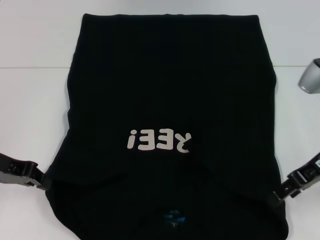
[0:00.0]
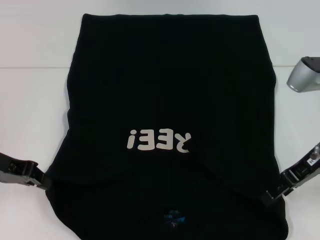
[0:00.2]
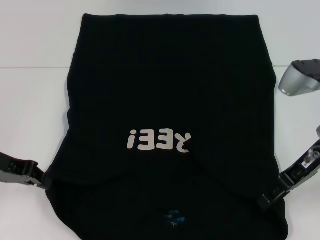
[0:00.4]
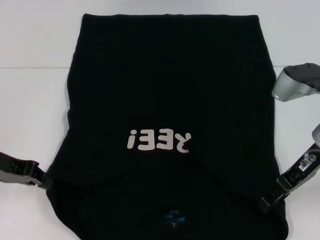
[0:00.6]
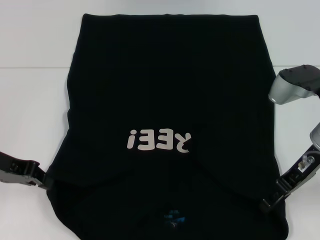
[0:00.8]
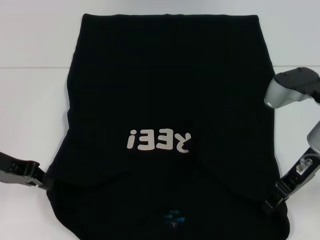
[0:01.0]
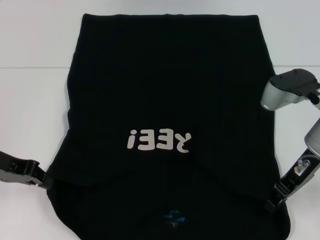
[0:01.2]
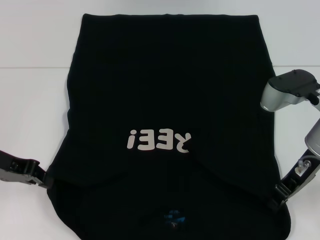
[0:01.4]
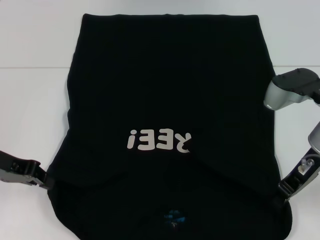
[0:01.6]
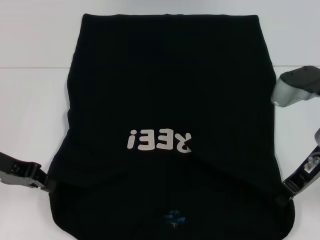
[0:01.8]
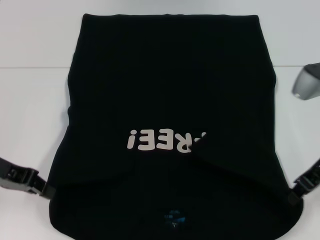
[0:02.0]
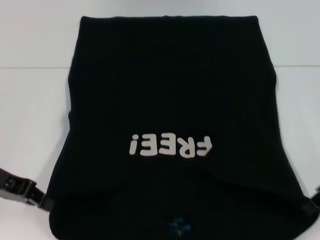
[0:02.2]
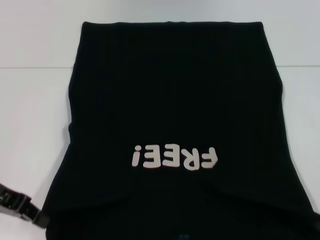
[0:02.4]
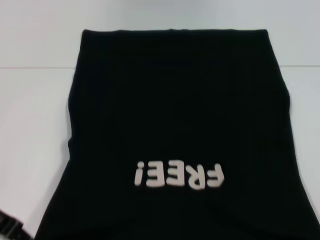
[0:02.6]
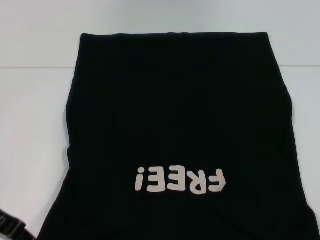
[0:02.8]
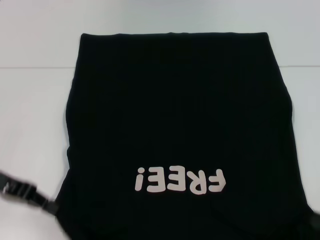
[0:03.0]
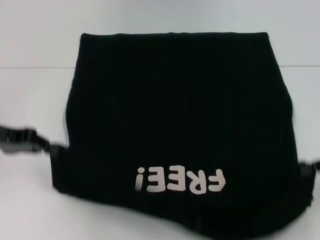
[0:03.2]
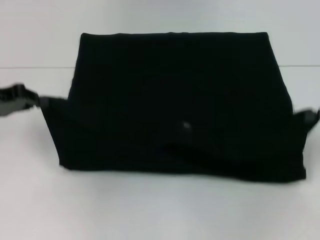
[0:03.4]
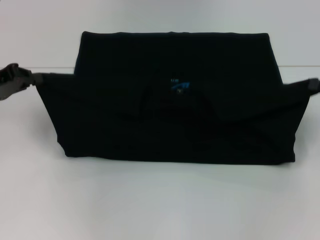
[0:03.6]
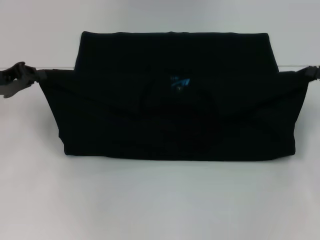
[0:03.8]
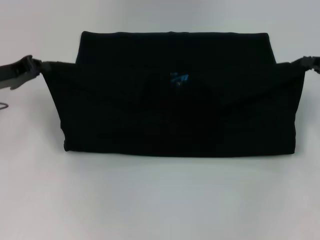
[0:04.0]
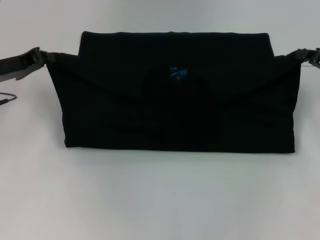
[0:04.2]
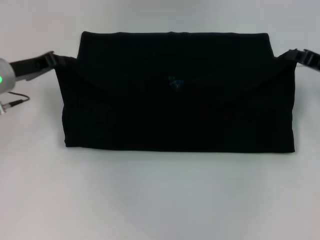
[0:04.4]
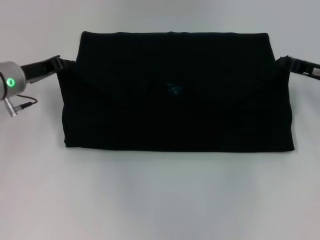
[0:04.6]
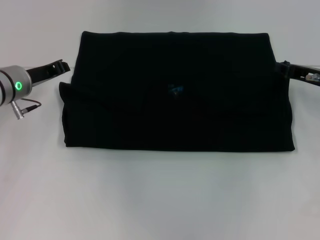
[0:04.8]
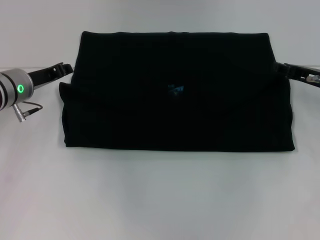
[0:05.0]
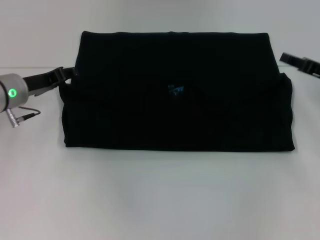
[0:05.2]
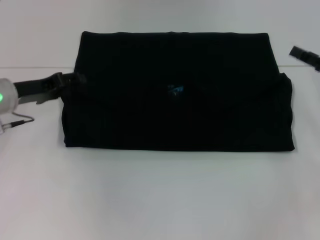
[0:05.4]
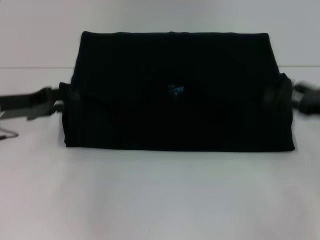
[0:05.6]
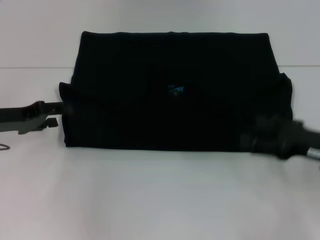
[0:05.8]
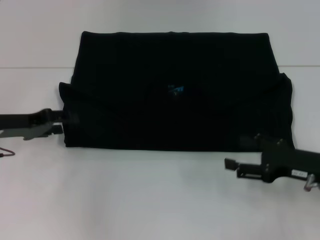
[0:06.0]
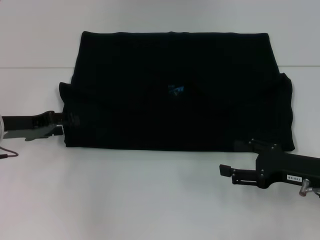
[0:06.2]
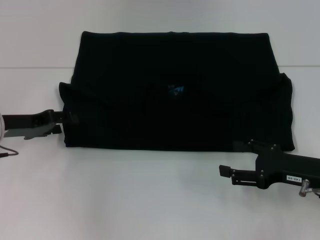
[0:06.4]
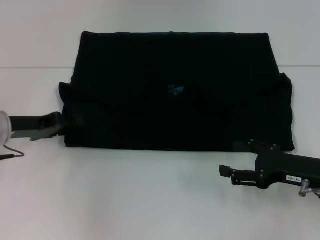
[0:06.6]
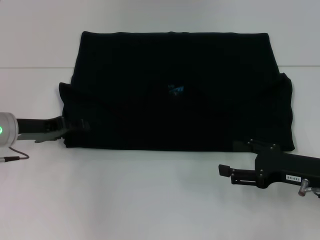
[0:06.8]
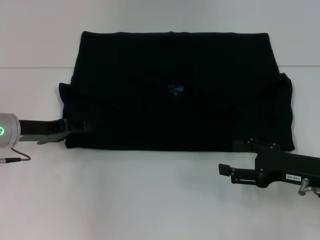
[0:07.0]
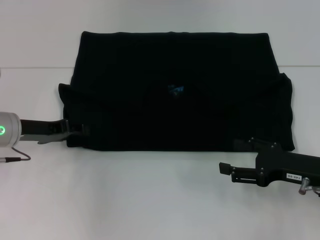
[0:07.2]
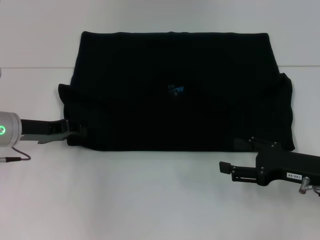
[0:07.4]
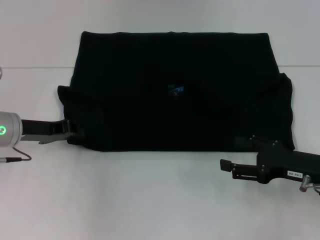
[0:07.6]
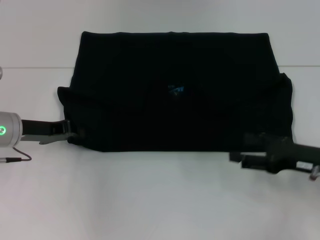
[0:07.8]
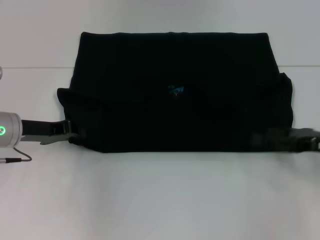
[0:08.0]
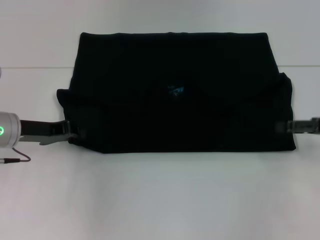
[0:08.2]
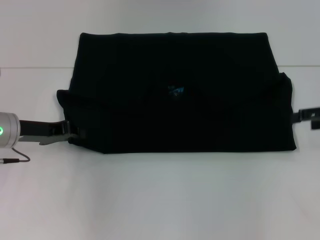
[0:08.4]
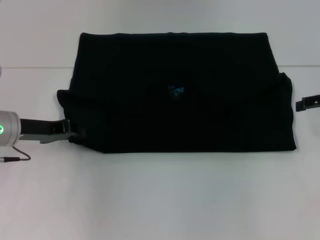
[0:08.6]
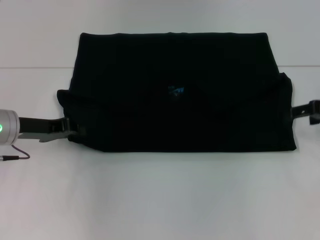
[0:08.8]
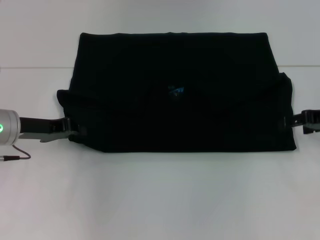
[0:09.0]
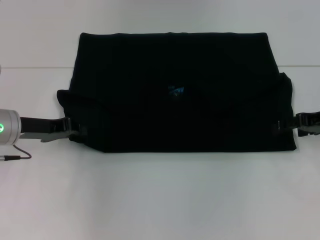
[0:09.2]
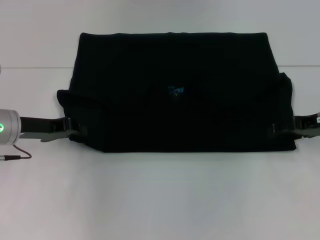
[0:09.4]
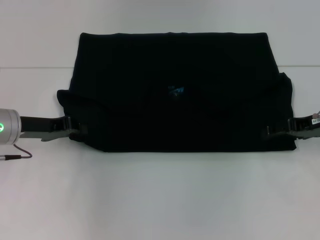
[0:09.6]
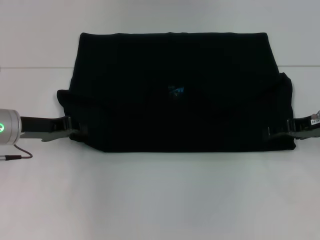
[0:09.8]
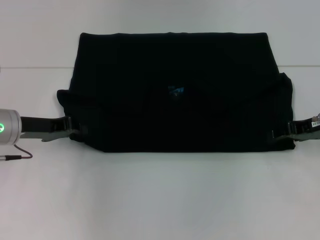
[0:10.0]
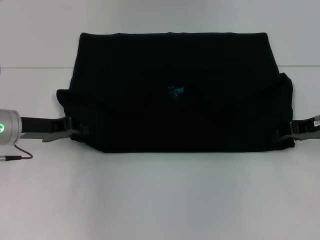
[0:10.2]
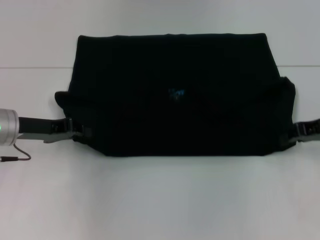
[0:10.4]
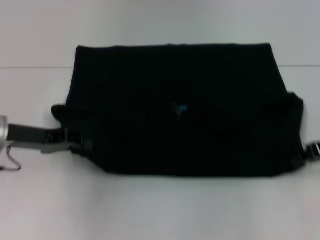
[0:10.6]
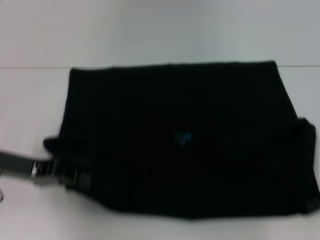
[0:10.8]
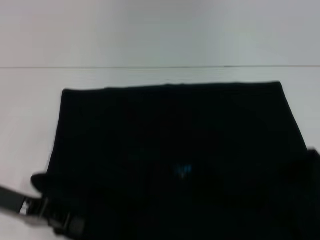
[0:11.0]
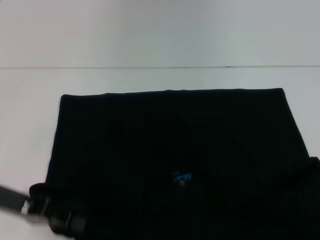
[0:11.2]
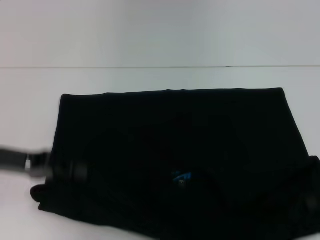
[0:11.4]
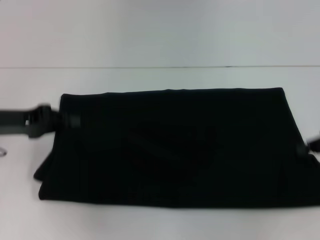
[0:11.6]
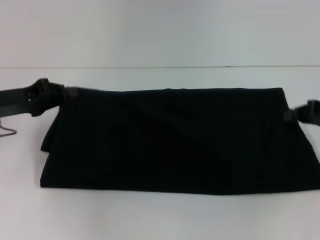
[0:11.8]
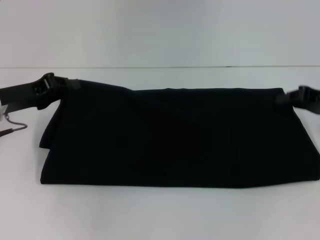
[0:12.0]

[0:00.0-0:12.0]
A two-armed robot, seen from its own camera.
Step, 1.8 to 4.8 s: Fold the clothes with your left hand.
Step, 1.8 to 4.8 s: Fold the clothes with your right hand.
Step, 5.0 to 11.0 s: Pull the clothes with your left hand.
Step, 5.0 to 11.0 s: Pull the clothes with your right hand.
0.0 to 1.6 s: The right gripper closes its fingers.
1.6 to 3.0 s: The right gripper shifts approximately 15 cm to the right and backward.
3.0 to 4.4 s: Both grippers travel together forward, about 10 cm.
4.4 to 6.0 s: The right gripper travels backward and downward by about 15 cm, and opens up. The left gripper heads backward, covering about 5 cm, and opens its fingers.
6.0 to 7.6 s: The left gripper closes.
7.6 to 9.0 s: The right gripper goes about 15 cm forward, upward and to the right.
9.0 to 10.4 s: The right gripper closes its fingers.
10.4 to 12.0 s: The right gripper moves about 10 cm backward and comes back, while the left gripper travels backward and back again, about 10 cm each way.

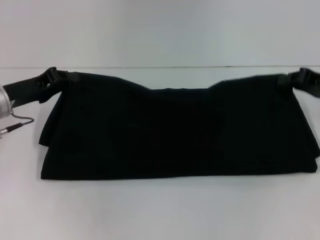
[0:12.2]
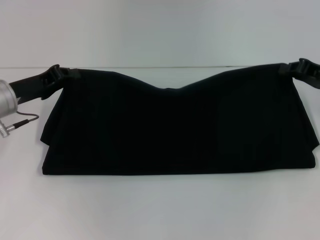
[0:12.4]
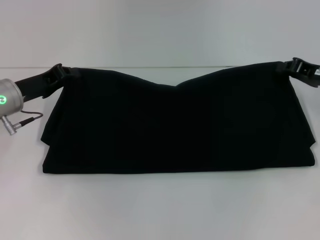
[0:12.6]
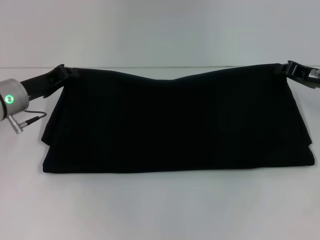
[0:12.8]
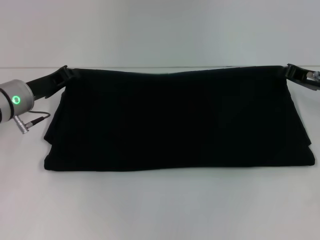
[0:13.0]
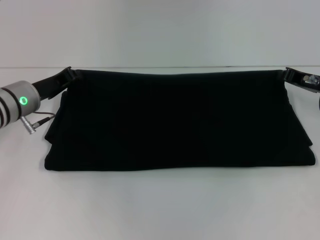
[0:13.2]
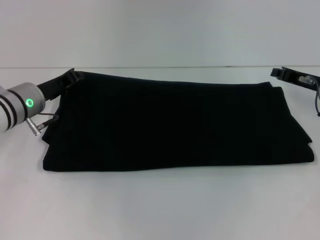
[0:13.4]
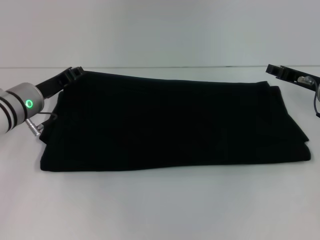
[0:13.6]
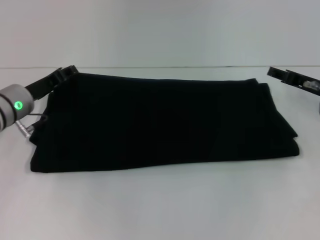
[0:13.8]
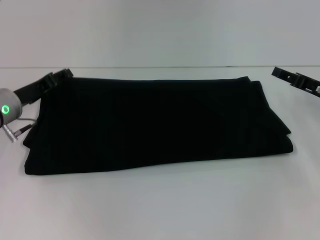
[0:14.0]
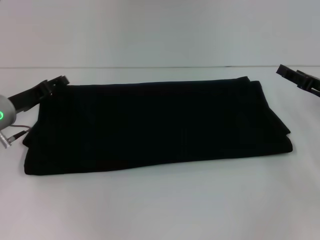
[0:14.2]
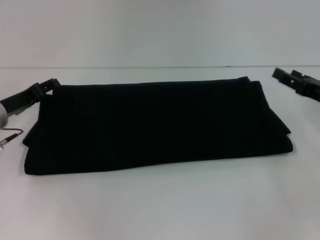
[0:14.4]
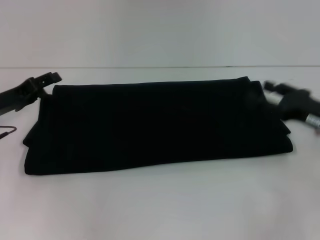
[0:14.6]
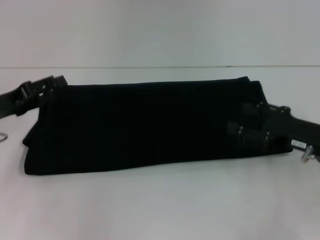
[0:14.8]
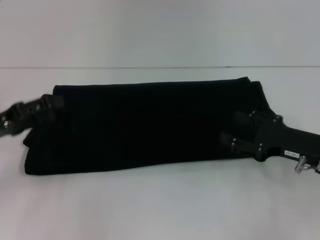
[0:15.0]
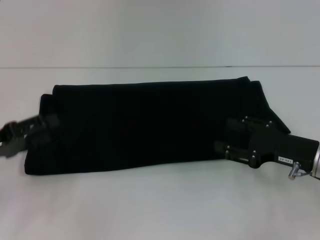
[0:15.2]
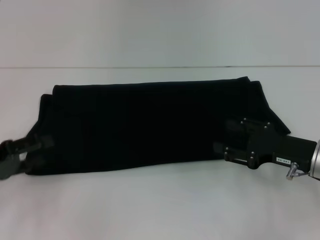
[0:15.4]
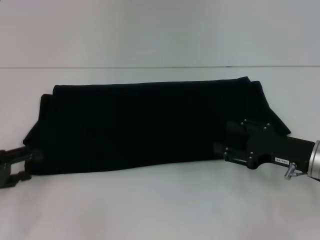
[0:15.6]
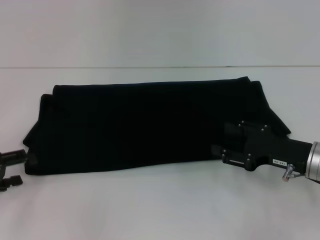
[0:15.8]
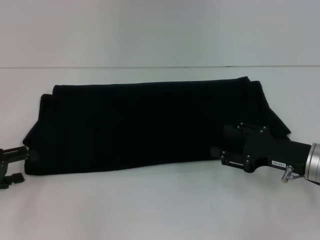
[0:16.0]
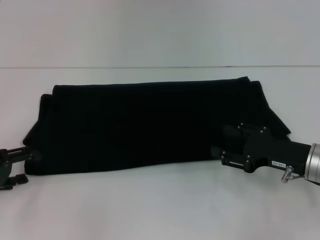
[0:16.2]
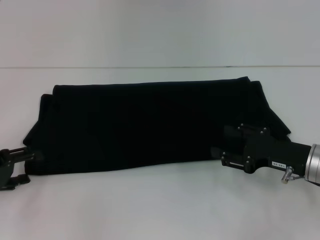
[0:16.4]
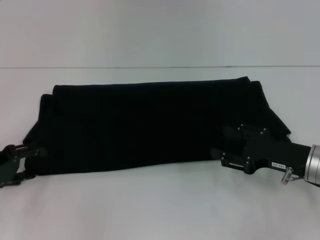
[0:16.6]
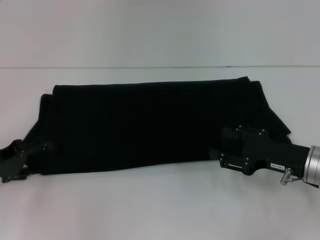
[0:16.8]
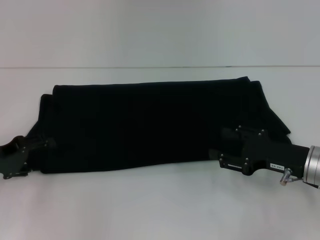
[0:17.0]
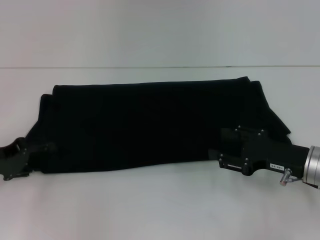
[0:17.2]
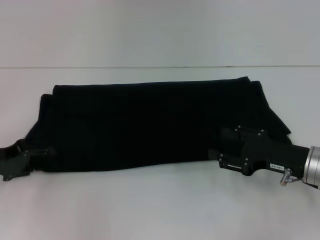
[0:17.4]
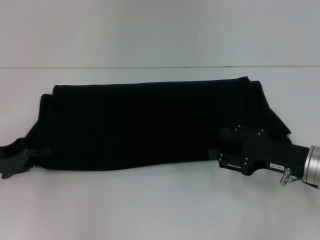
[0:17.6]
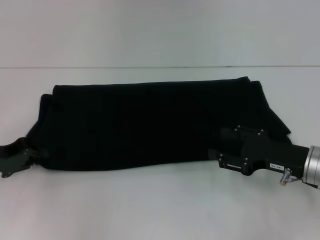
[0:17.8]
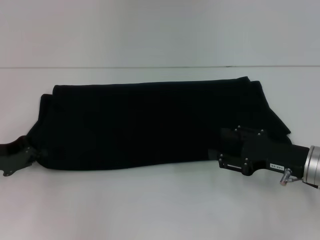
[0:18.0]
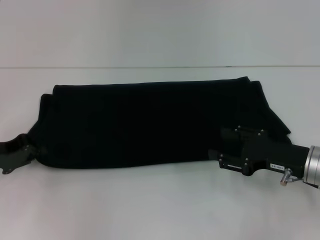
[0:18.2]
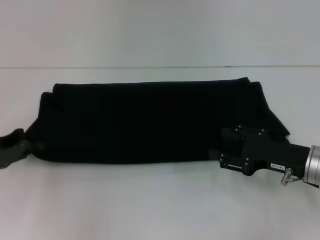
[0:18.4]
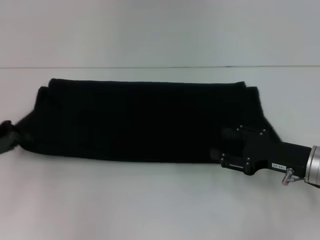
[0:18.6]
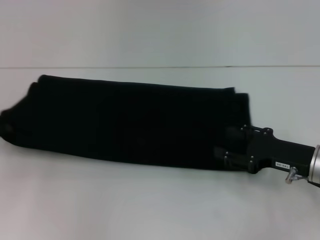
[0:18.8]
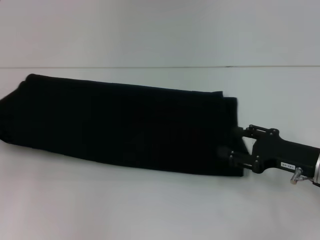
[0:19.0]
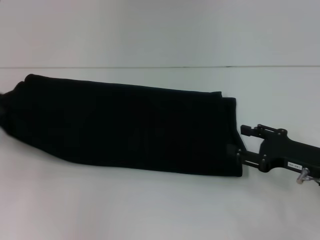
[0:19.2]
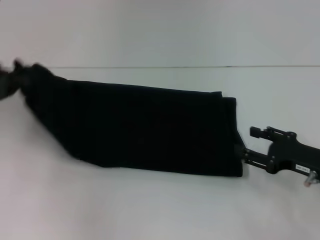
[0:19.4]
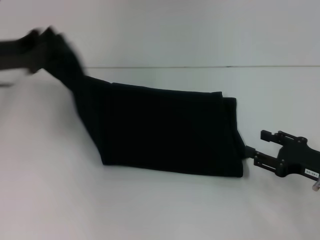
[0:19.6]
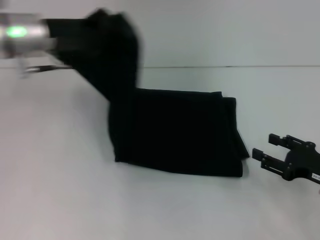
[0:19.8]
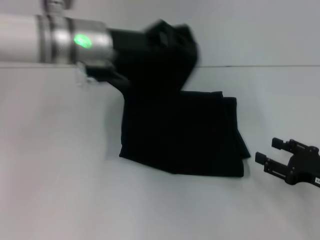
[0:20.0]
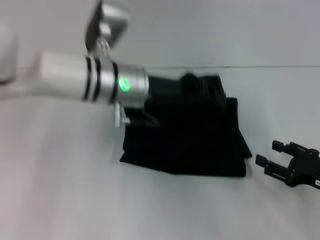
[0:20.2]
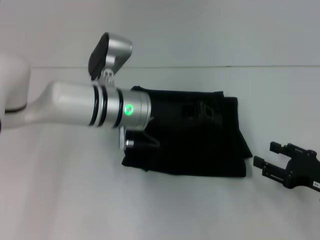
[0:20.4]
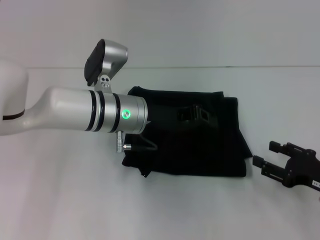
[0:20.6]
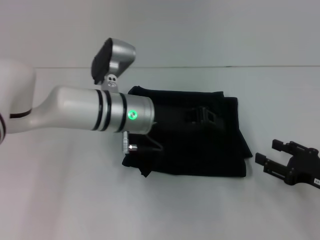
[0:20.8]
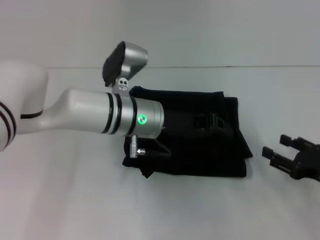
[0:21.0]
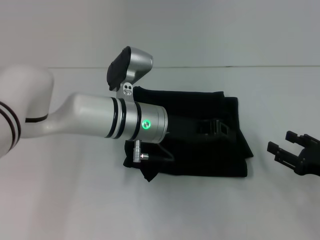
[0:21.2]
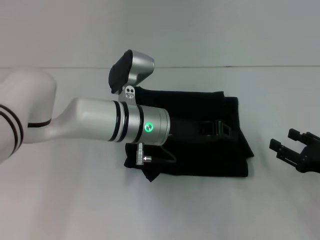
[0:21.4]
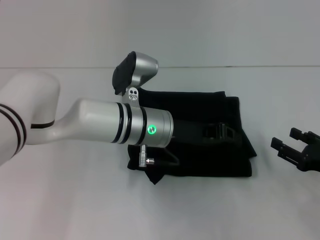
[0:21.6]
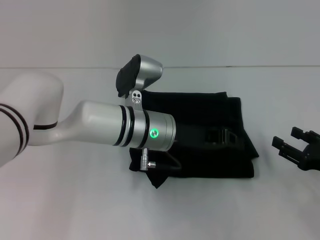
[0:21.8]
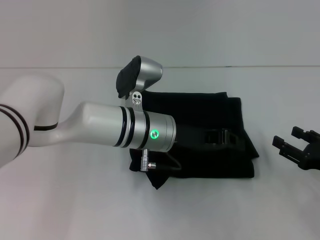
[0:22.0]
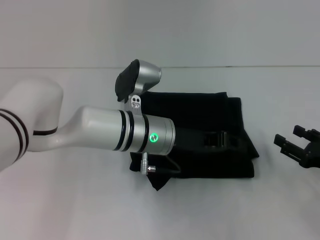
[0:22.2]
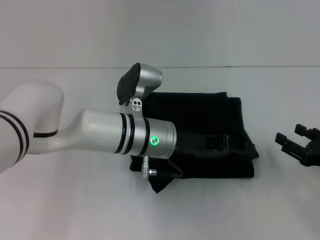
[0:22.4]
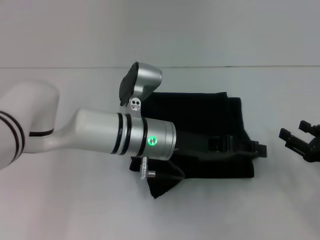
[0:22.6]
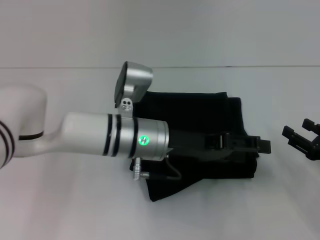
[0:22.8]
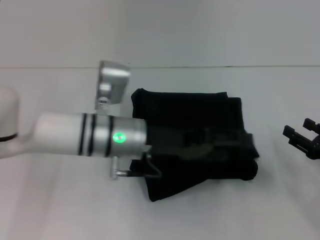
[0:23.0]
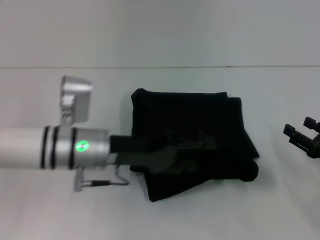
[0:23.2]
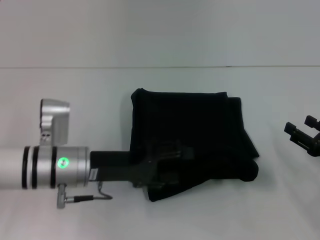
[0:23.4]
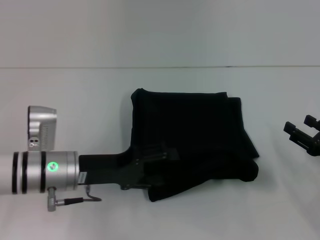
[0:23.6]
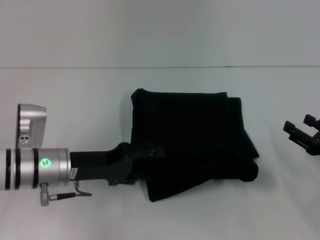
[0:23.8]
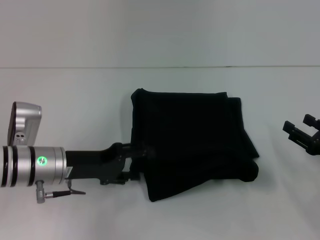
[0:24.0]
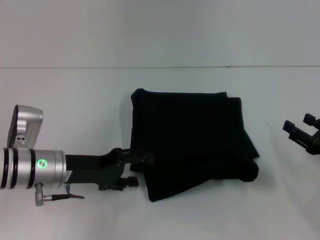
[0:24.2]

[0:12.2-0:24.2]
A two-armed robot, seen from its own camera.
Step, 12.2 to 14.2 s: Fold the clothes with your right hand.
Step, 12.2 to 22.6 s: Fold the clothes with your left hand.
12.2 to 13.8 s: The right gripper ends up approximately 5 cm from where it was.
13.8 to 15.2 s: The right gripper goes some 10 cm backward, and opens up, while the left gripper moves backward and to the left, approximately 15 cm, and opens.
16.6 to 18.2 s: The left gripper closes up.
18.2 to 19.8 s: The right gripper travels to the right by approximately 5 cm. Meanwhile the left gripper travels upward, forward and to the right by about 15 cm.
19.8 to 21.2 s: The left gripper is displaced to the right and downward by approximately 20 cm.
21.2 to 22.6 s: The left gripper opens up.
22.6 to 24.2 s: The left gripper is displaced to the left by roughly 15 cm, and opens its fingers.
